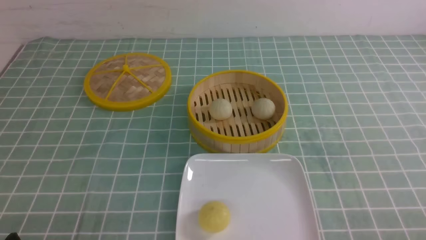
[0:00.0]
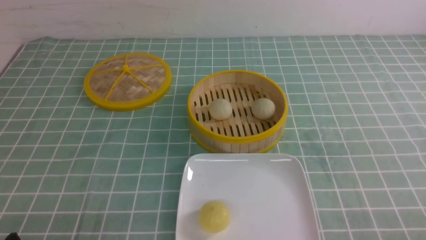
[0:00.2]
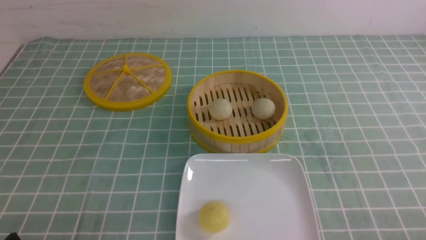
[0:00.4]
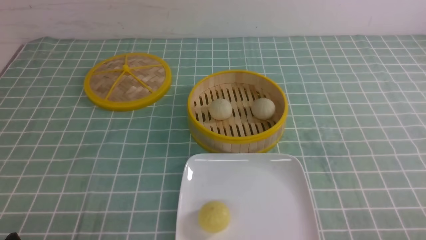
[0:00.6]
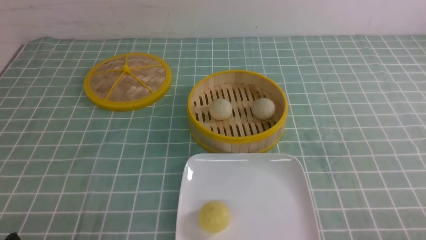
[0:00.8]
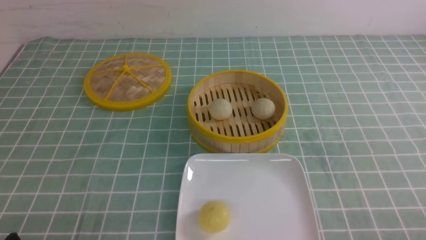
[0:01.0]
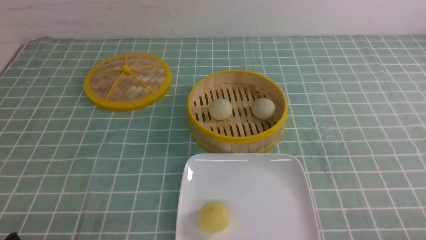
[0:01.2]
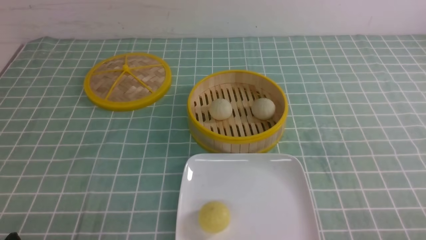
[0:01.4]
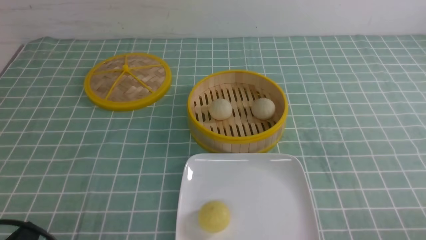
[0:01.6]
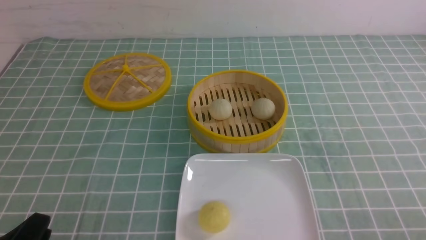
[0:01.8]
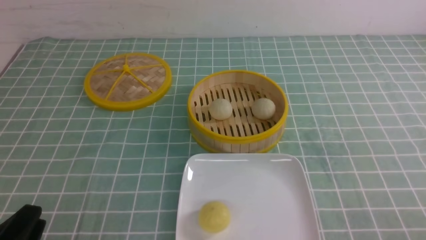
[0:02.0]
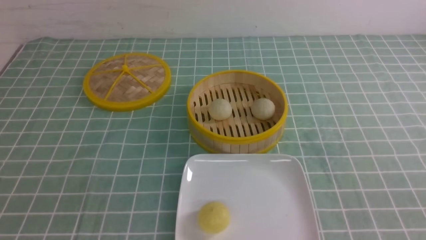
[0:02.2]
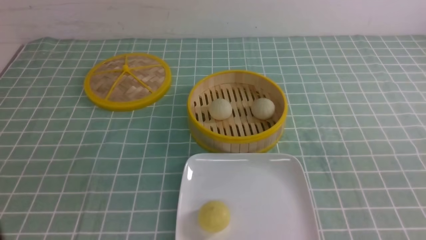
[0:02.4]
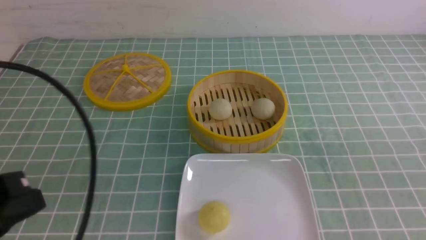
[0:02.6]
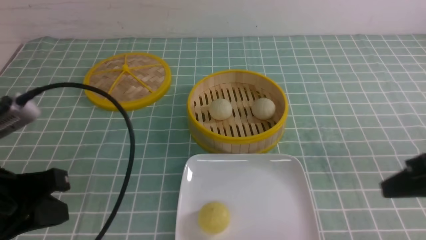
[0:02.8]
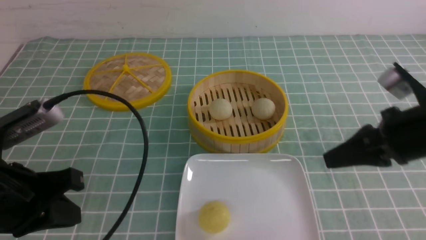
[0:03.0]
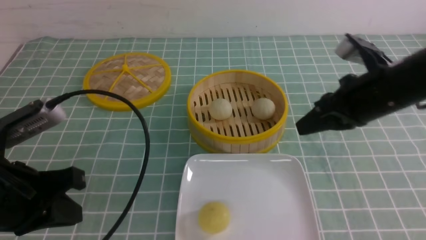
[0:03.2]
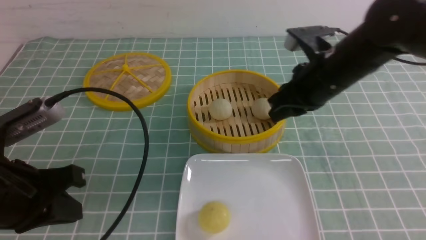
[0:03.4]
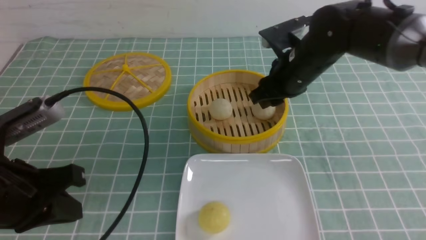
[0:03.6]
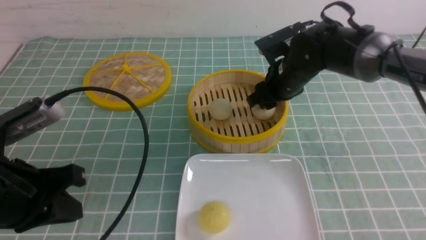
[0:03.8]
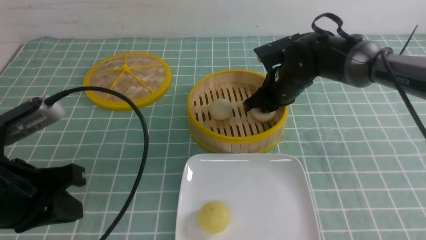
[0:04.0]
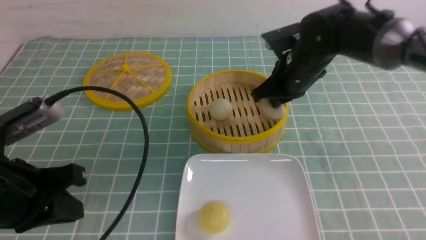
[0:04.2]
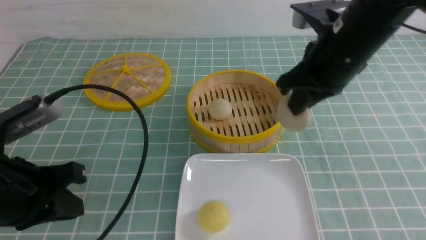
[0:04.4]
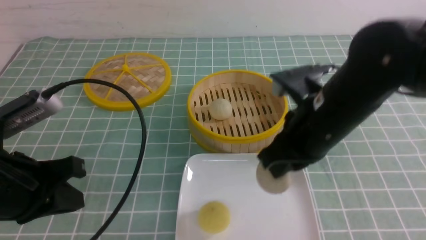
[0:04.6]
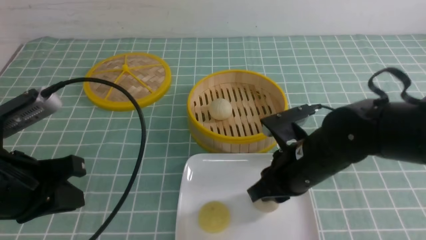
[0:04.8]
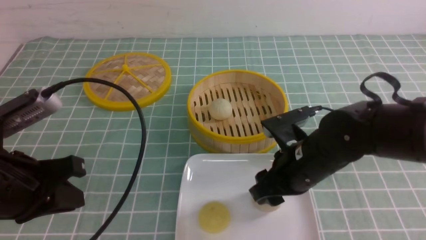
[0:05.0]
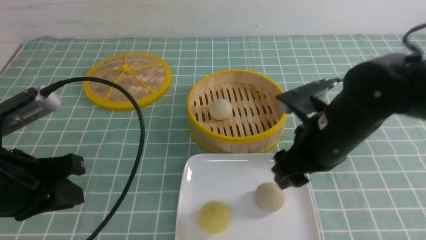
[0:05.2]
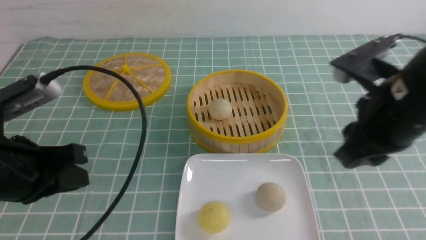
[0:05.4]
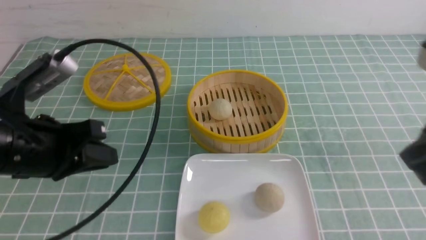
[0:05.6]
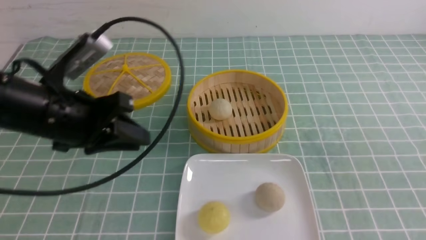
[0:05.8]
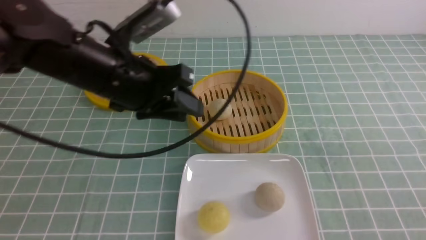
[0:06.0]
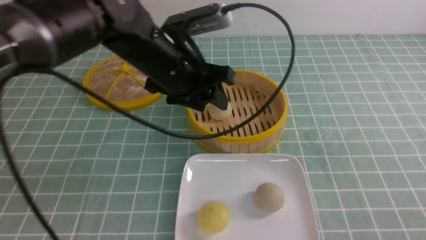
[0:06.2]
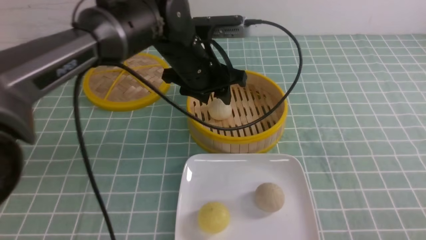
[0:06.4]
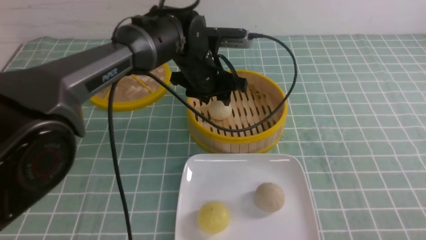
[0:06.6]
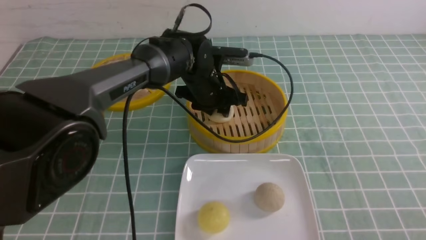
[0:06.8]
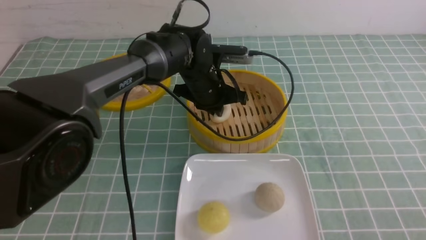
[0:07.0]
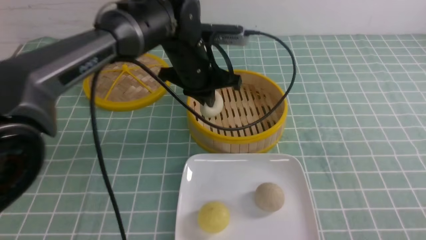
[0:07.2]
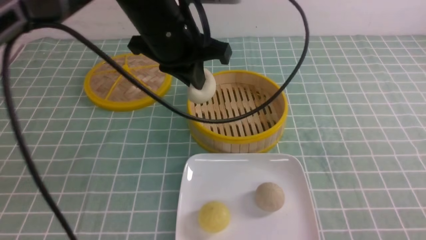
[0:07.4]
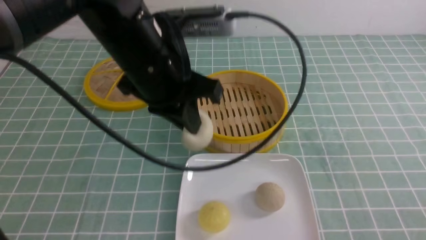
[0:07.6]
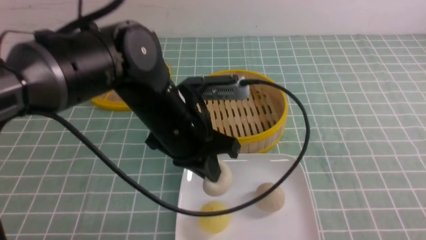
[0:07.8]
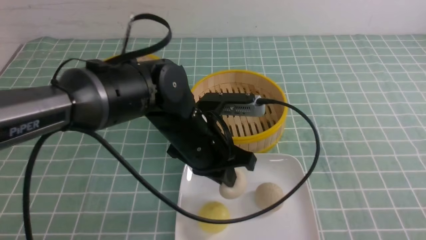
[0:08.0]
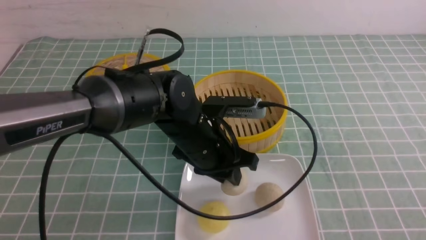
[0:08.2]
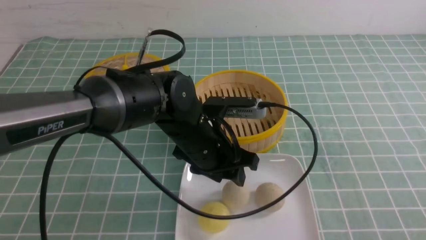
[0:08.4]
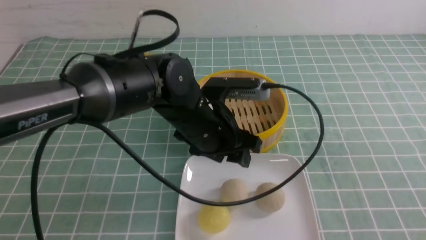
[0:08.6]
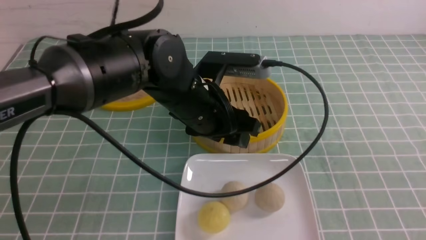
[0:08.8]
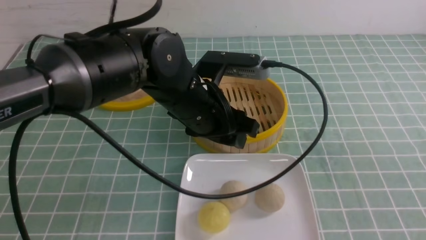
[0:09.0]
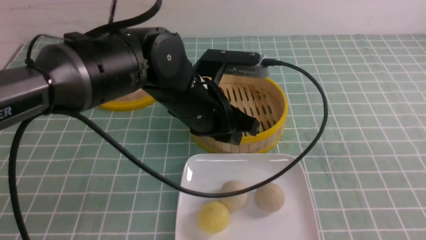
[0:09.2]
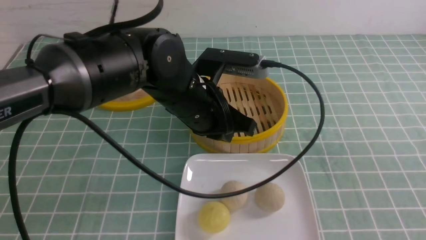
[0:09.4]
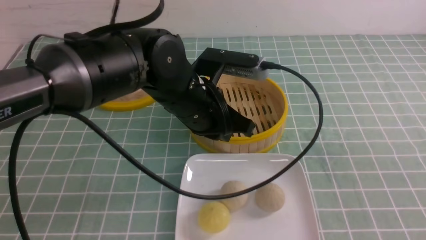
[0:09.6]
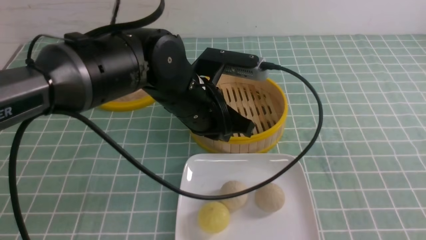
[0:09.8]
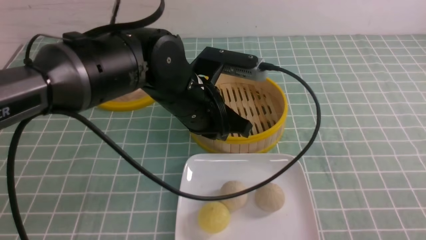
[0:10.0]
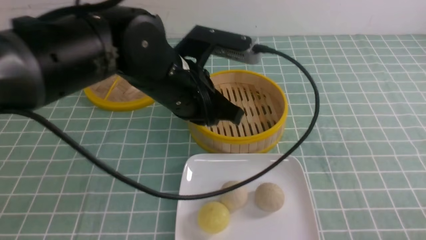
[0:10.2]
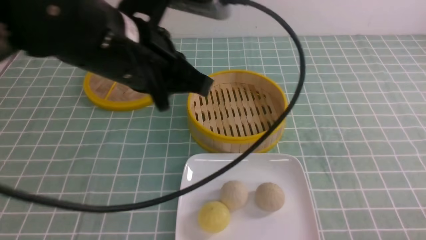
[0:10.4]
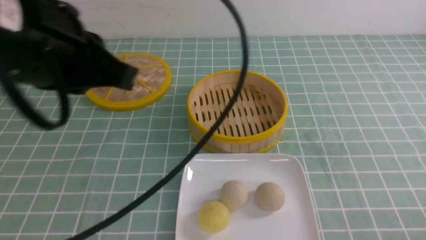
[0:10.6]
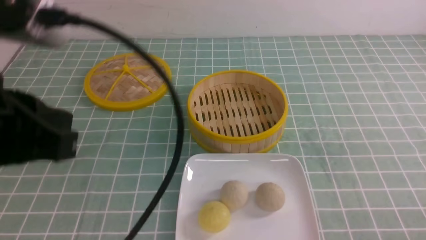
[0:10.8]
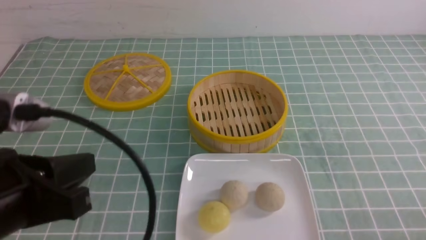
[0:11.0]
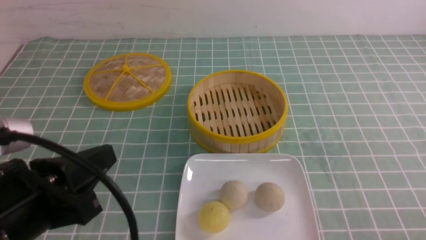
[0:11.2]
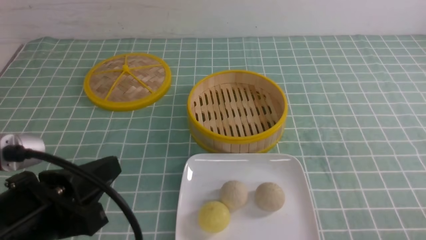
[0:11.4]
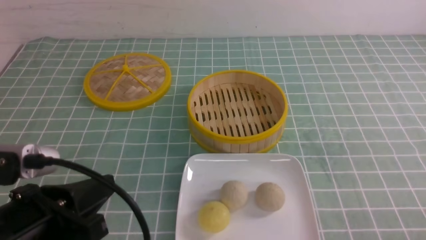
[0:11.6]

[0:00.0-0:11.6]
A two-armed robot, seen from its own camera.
Step, 0:00.0 to 0:04.0: use the right arm to grab the steamed stuffed bun that is closest to it.
Step, 0:04.2 to 0:05.2: use the right arm to put the steamed stuffed bun into the plate.
Step, 0:05.4 to 0:07.0: use the left arm to grab the steamed stuffed bun that is closest to it.
Step, 0:07.2 to 0:08.4: use the left arm to put the steamed stuffed bun into the plate.
0:01.4 to 0:02.8: The right gripper is displaced forward and upward by about 20 cm, and closes, while the left gripper is displaced upward and forward by about 15 cm, and closes its fingers.
0:02.8 to 0:04.4: The right gripper moves to the left and forward, about 20 cm, and opens, then closes once more.
0:04.4 to 0:05.8: The left gripper travels forward and to the right by roughly 10 cm, and opens up. The right gripper travels backward and to the right by approximately 30 cm, and opens, then closes once more.
0:05.8 to 0:07.2: The right gripper is displaced downward and backward by approximately 10 cm. Meanwhile the left gripper travels to the right and forward by roughly 20 cm, and closes its fingers.
0:07.2 to 0:08.8: The left gripper moves up and down over some 15 cm, changing direction 2 times, and opens up.
0:08.8 to 0:10.2: The left gripper shifts some 5 cm upward, and closes its fingers; the right gripper goes some 10 cm downward.
0:10.2 to 0:11.6: The left gripper moves backward and to the left, some 20 cm.

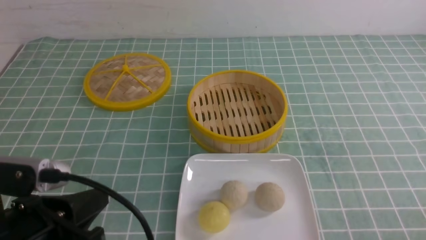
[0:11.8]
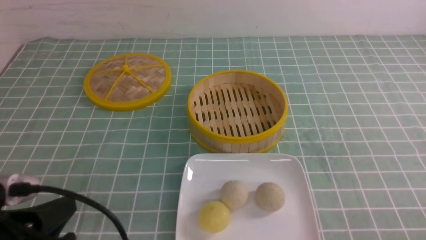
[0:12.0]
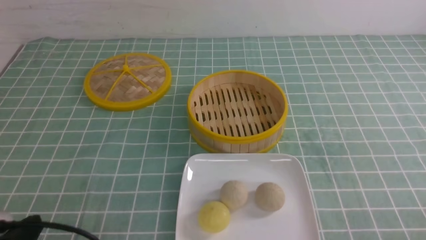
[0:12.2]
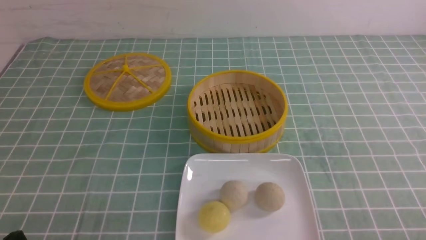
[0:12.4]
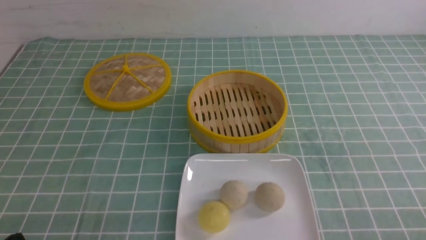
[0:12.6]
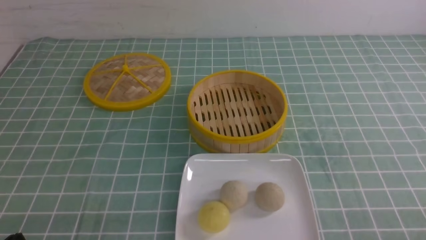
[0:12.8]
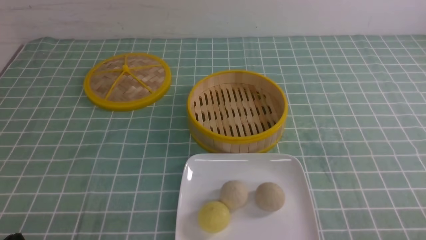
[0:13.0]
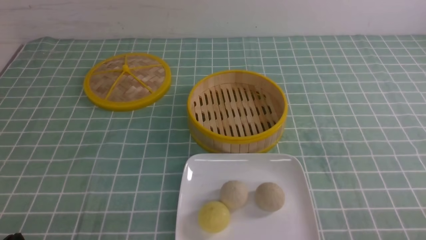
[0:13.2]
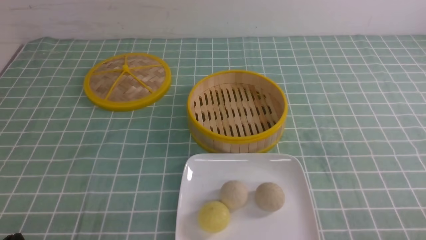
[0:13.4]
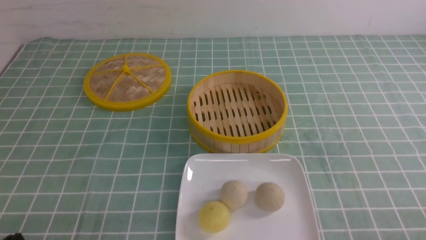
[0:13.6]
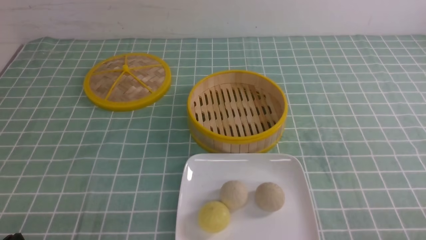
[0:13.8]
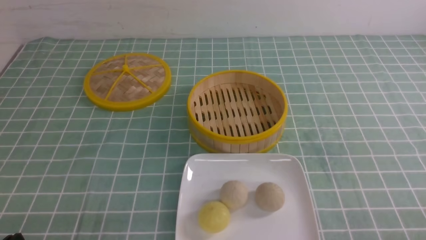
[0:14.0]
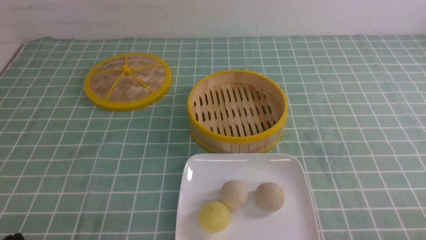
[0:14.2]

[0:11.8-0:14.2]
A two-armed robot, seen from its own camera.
0:11.8 to 0:13.0: The left gripper shifts some 10 cm downward and to the left.
0:13.0 to 0:14.2: Neither gripper changes place.

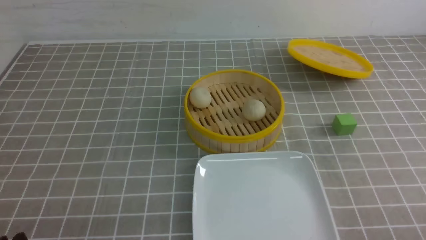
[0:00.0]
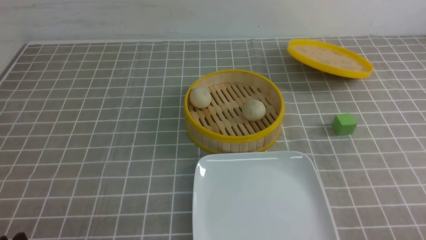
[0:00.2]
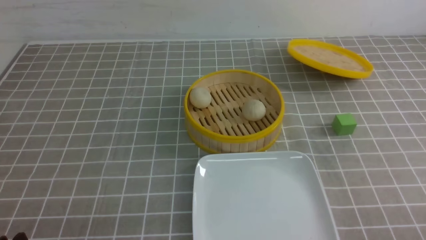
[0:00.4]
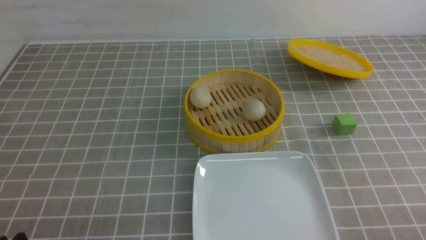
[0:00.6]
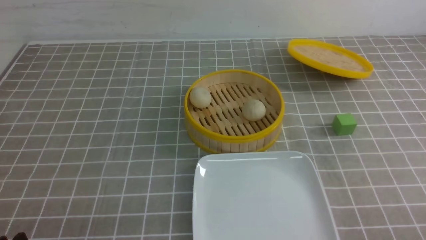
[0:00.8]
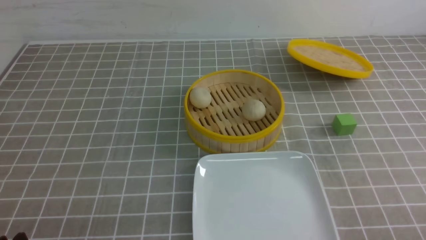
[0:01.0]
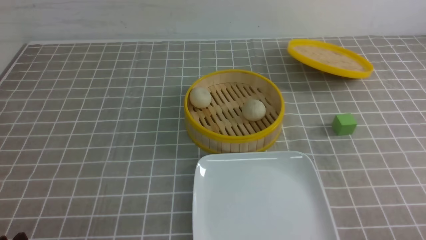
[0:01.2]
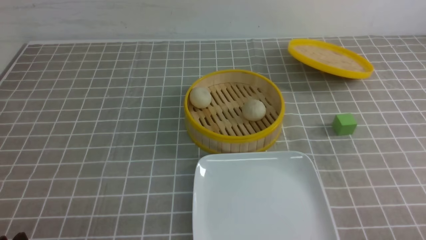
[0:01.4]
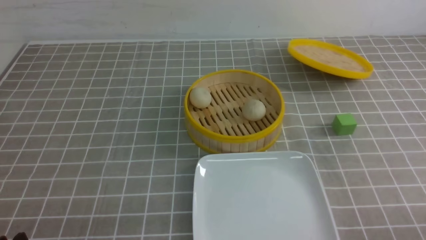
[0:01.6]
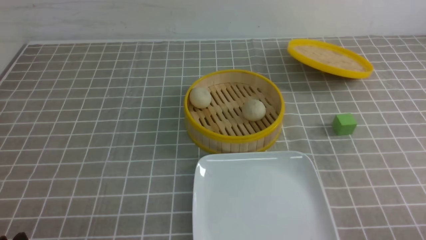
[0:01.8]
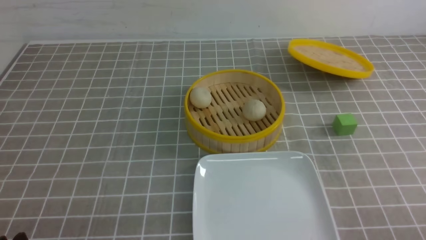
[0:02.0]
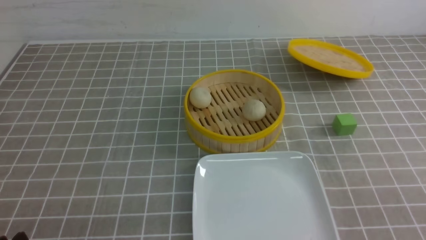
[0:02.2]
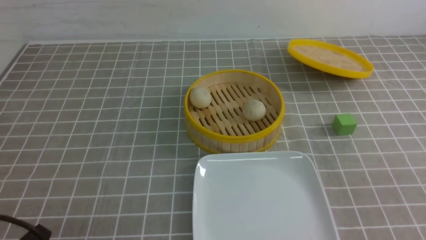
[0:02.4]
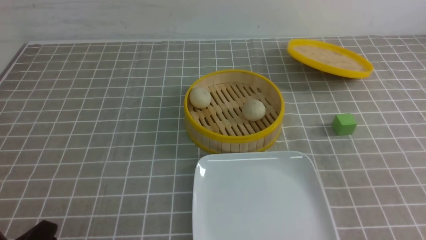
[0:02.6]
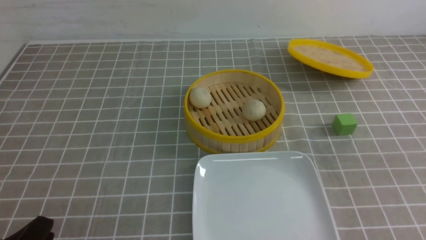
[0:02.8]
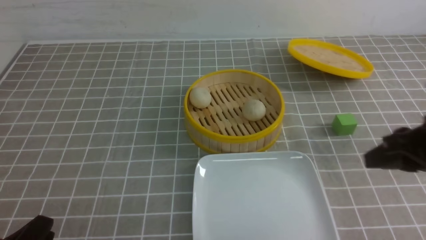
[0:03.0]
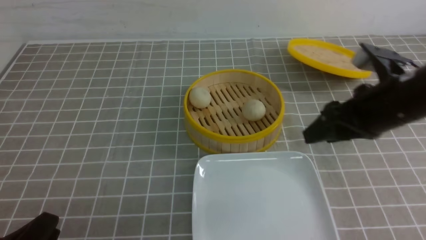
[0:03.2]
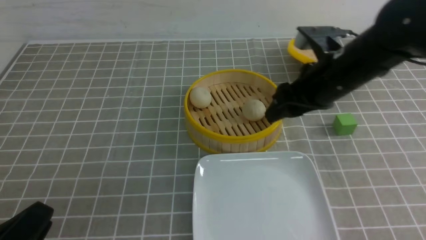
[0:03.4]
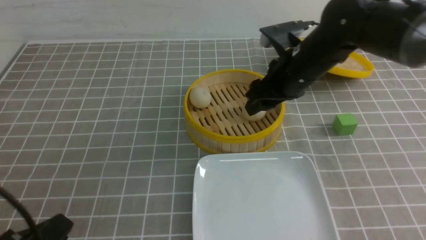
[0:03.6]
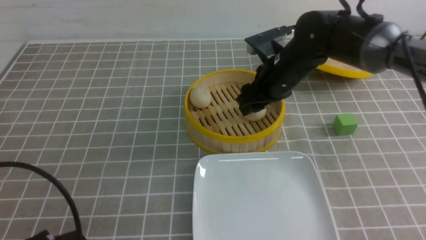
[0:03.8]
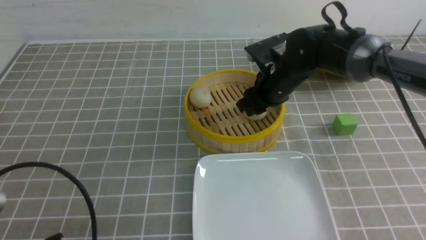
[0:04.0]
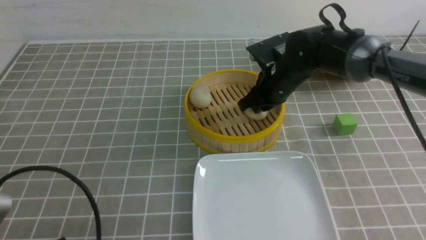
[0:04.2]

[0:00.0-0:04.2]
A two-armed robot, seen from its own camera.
0:02.8 to 0:04.2: The right gripper moves forward and to the left, some 30 cm, and opens and closes again.
